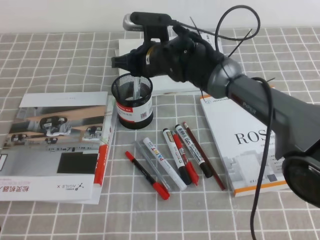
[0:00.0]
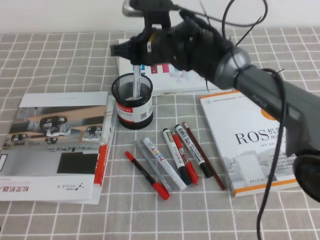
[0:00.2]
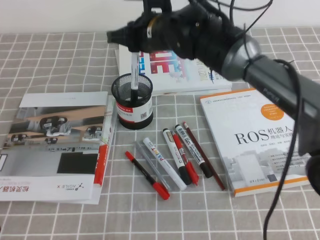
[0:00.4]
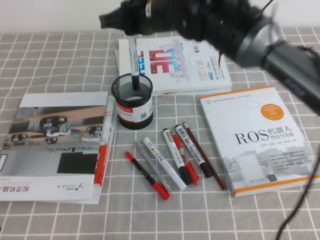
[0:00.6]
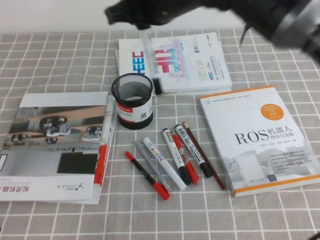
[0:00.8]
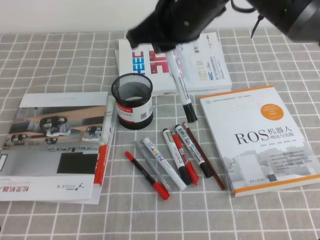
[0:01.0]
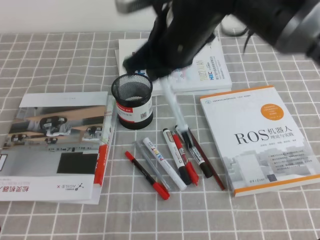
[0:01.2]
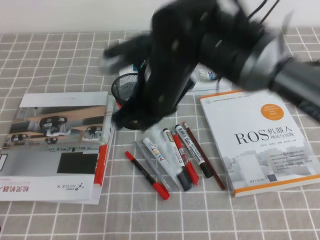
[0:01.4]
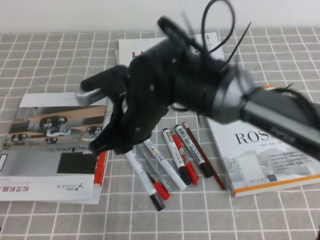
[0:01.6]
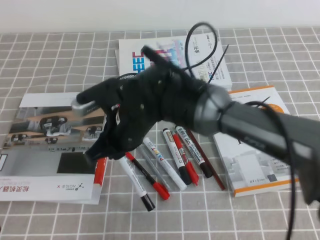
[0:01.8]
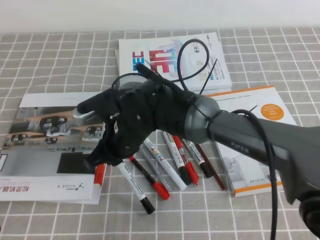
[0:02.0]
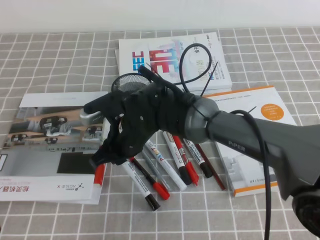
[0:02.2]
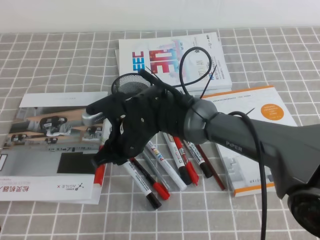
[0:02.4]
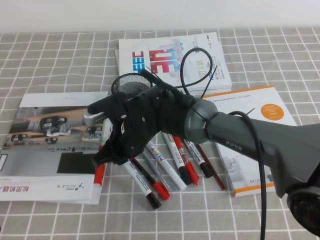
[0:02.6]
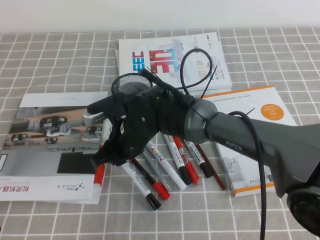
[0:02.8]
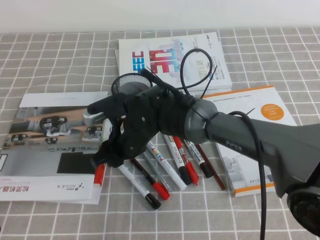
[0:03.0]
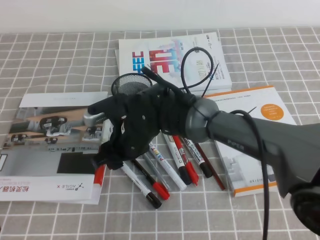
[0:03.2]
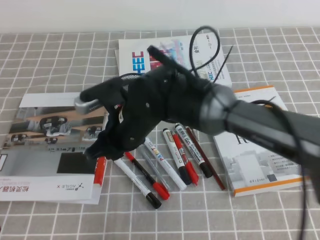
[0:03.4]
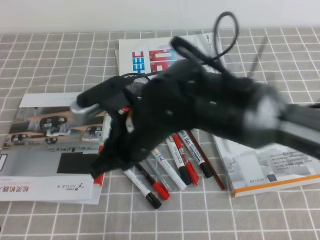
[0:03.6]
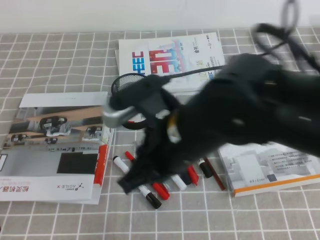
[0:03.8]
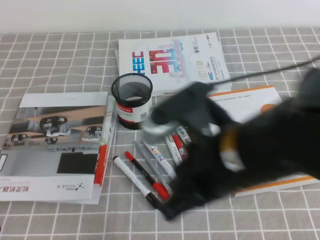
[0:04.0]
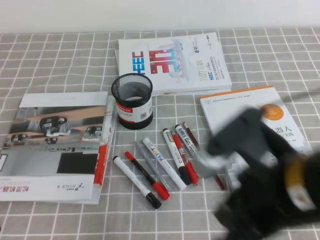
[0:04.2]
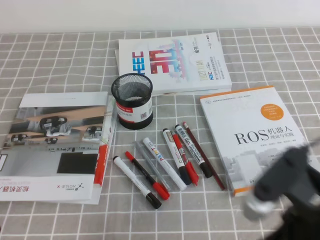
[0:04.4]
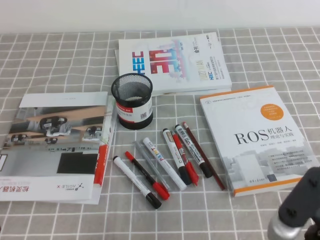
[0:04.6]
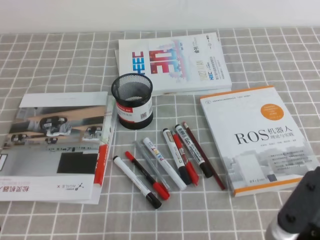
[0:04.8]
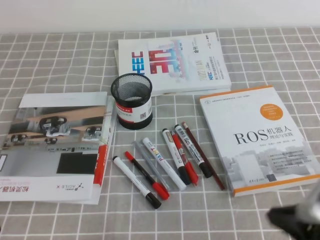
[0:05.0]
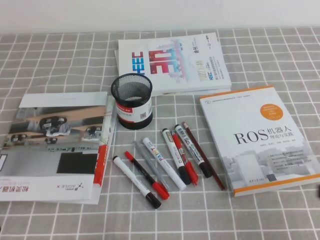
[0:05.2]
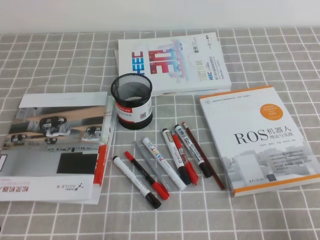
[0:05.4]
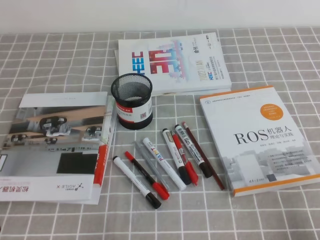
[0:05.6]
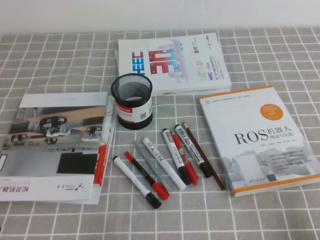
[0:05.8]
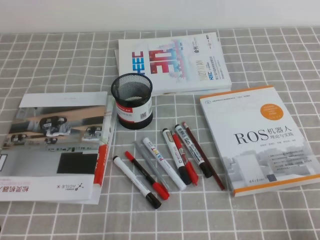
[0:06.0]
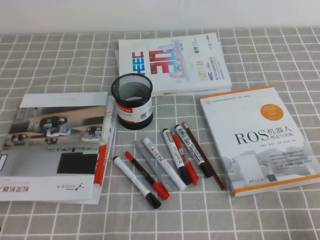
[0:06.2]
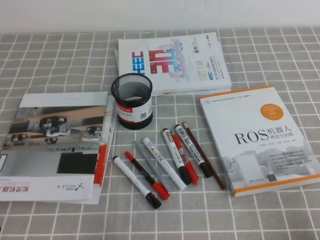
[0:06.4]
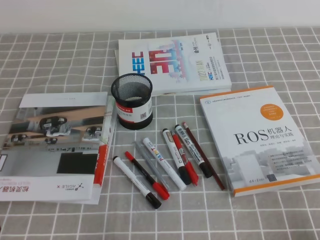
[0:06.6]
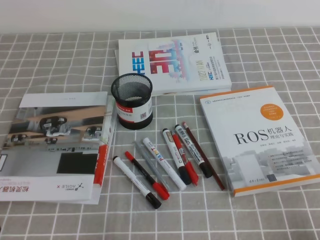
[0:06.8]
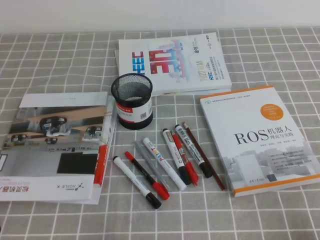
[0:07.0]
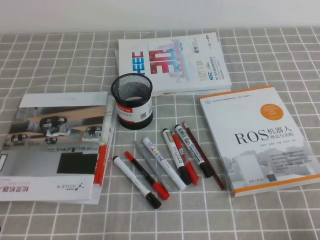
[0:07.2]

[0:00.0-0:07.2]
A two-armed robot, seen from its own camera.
Step, 0:00.0 to 0:07.2: Pick up the pen from the pen holder.
0:00.0 to 0:01.4: The right gripper moves backward and upward, approximately 15 cm.
0:01.4 to 0:02.8: The right gripper moves downward and to the left, some 15 cm.
0:02.8 to 0:04.4: The right gripper moves backward, to the right and upward, about 35 cm.
0:04.4 to 0:05.8: The right gripper travels to the right and downward by roughly 20 cm.
